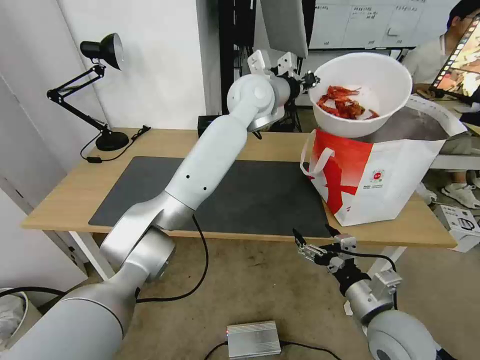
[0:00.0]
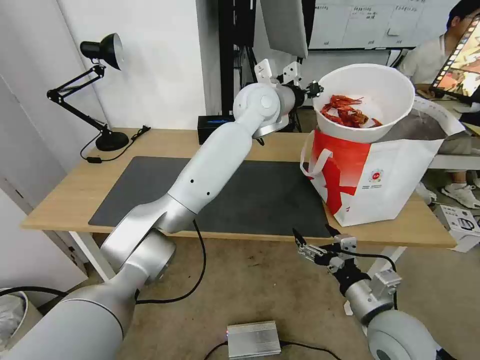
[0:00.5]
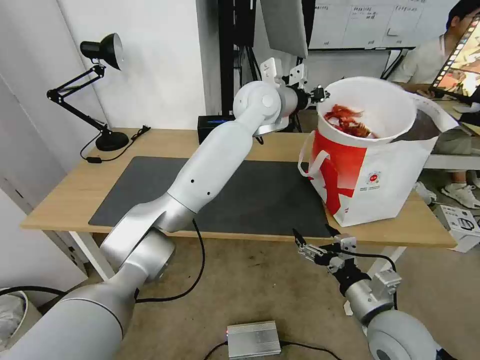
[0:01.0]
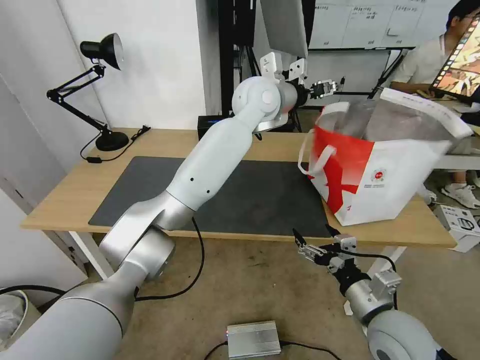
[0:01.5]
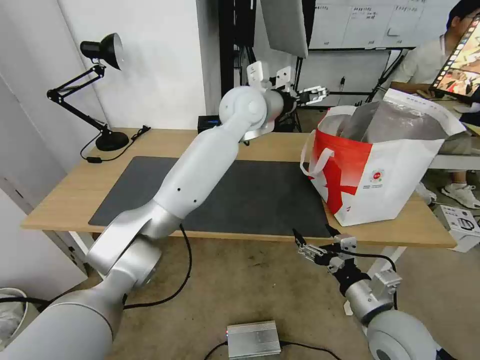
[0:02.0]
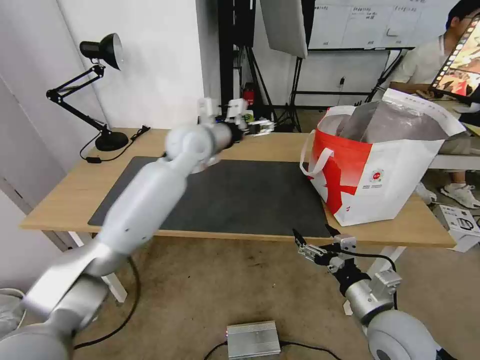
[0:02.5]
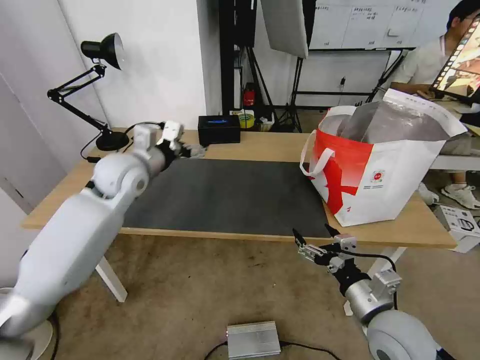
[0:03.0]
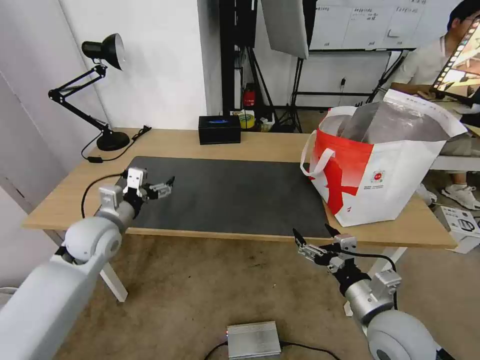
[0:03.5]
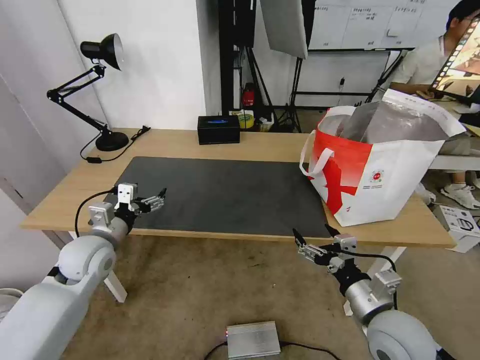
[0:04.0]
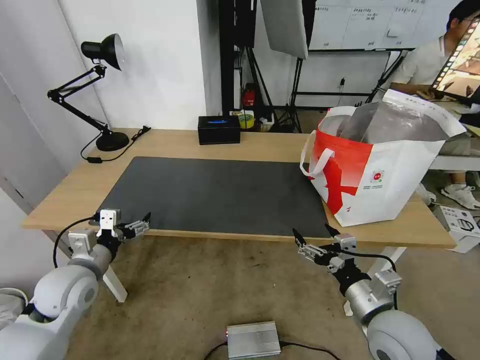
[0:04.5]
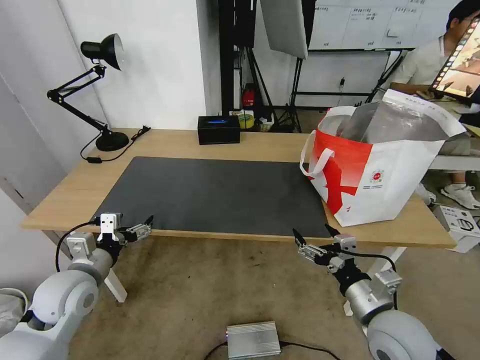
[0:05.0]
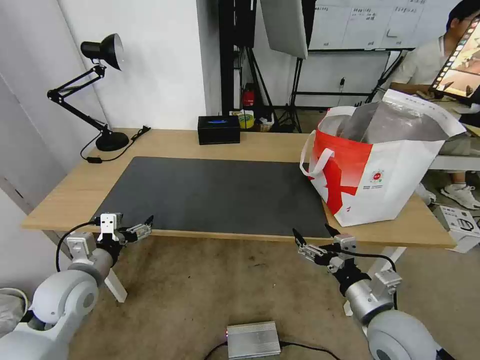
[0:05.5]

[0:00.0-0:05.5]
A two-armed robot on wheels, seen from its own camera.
Task of the whole recording: Pick up the trash from the table and place it into the takeout bag.
0:00.0 to 0:02.0: The left gripper opens its fingers.
0:02.0 to 0:03.5: The left gripper moves to the left, downward and backward, roughly 40 cm.
0:03.5 to 0:05.5: The left gripper heads backward, covering approximately 10 cm.

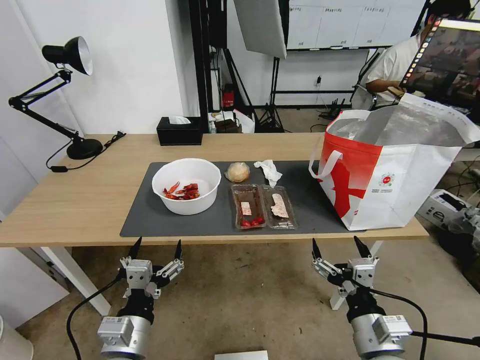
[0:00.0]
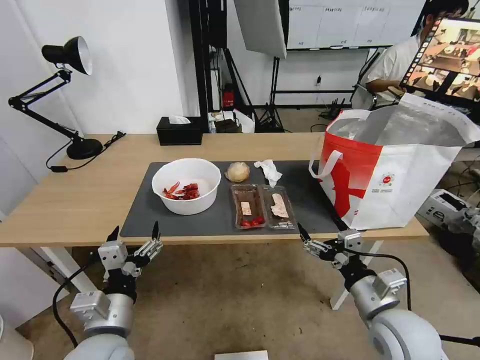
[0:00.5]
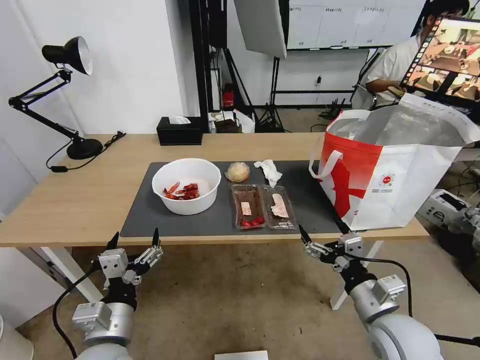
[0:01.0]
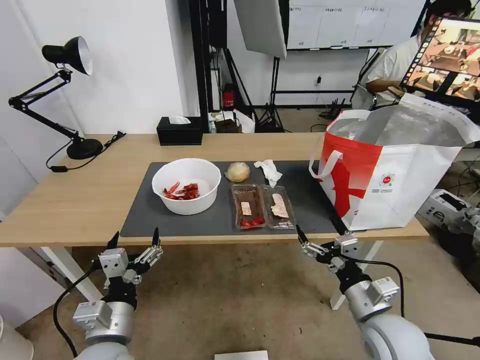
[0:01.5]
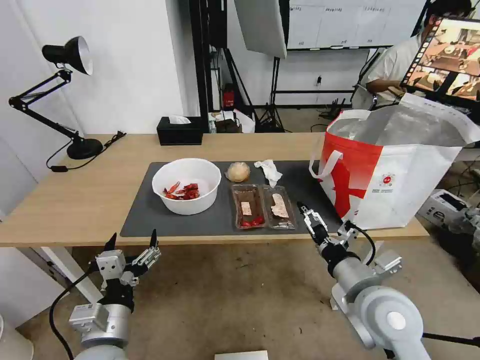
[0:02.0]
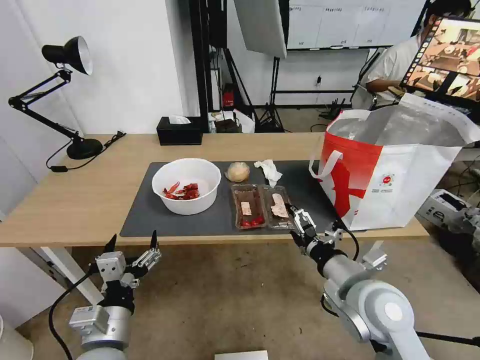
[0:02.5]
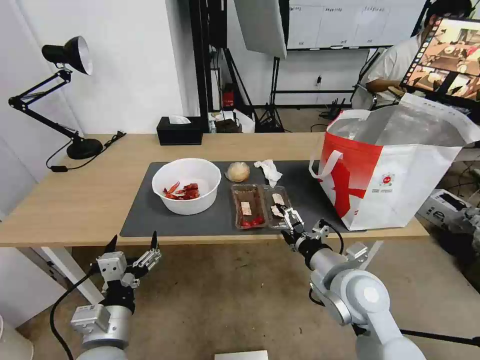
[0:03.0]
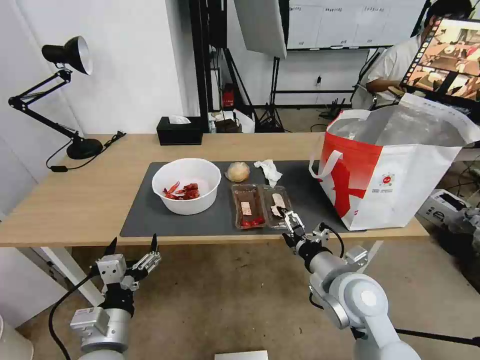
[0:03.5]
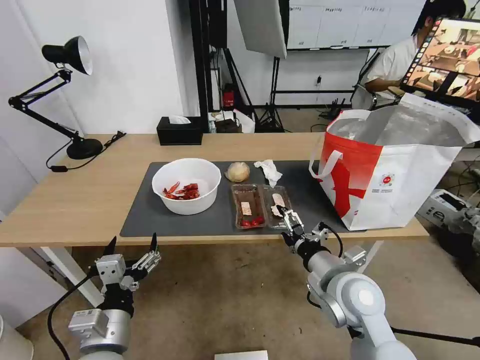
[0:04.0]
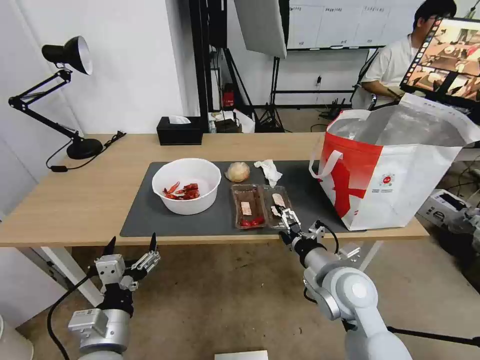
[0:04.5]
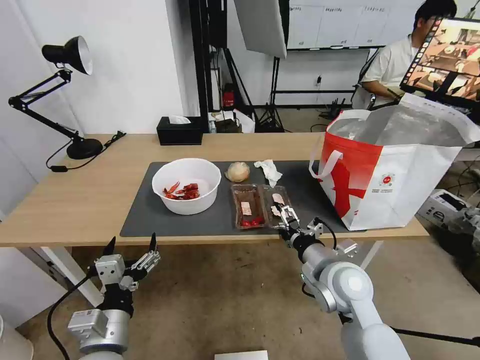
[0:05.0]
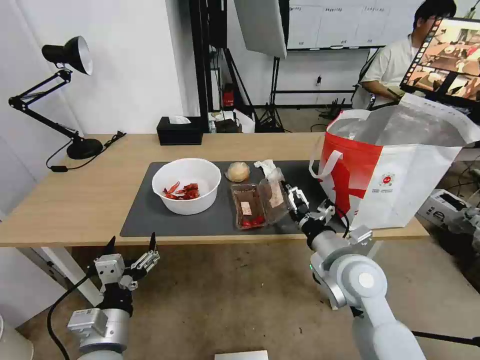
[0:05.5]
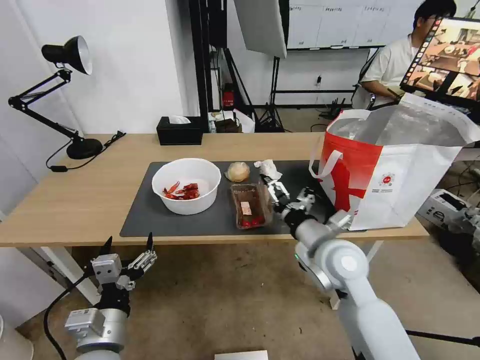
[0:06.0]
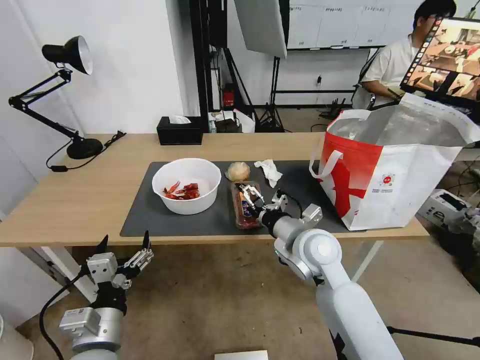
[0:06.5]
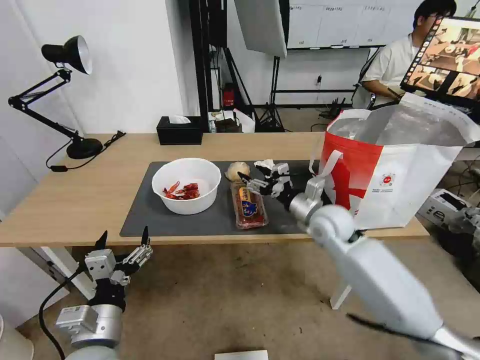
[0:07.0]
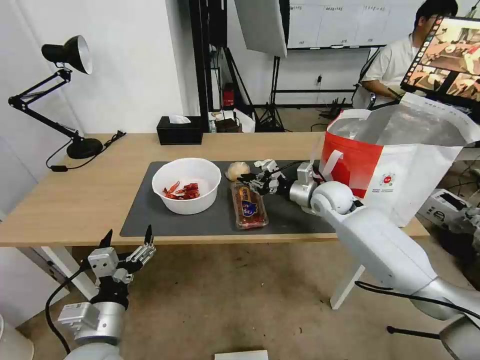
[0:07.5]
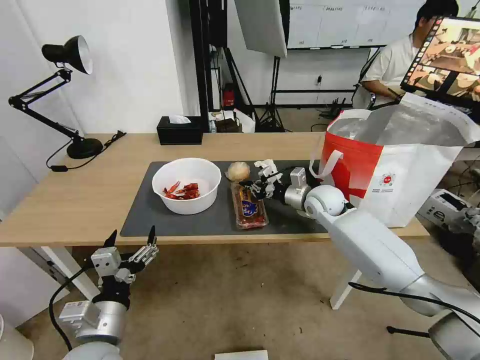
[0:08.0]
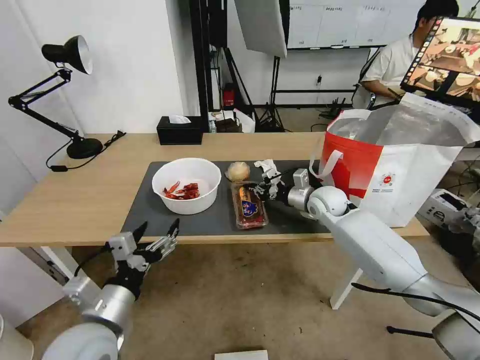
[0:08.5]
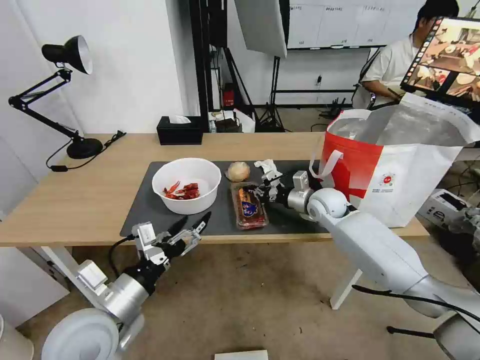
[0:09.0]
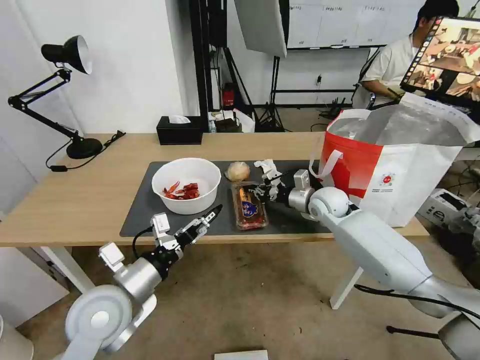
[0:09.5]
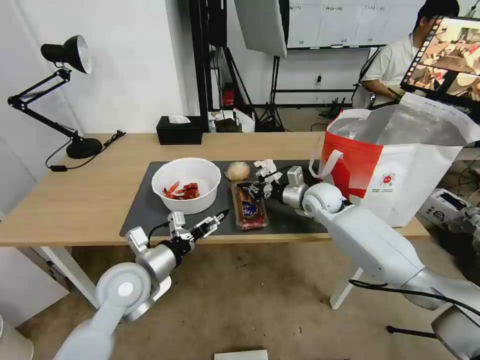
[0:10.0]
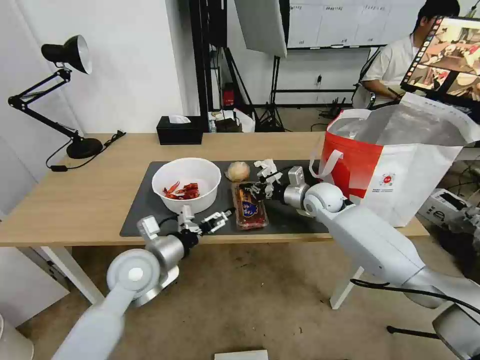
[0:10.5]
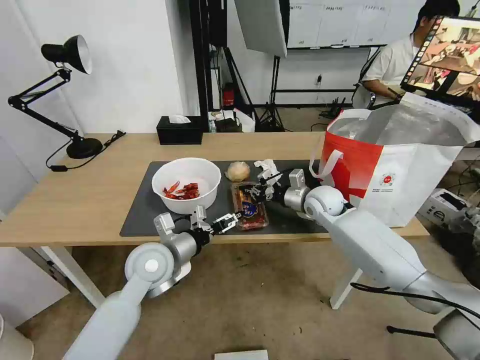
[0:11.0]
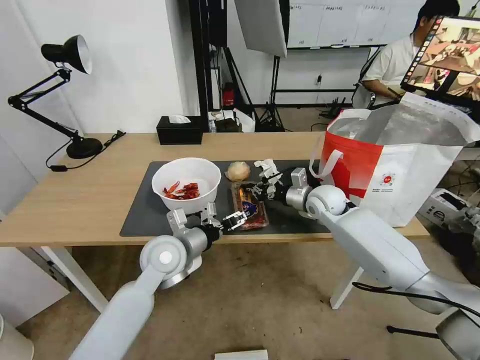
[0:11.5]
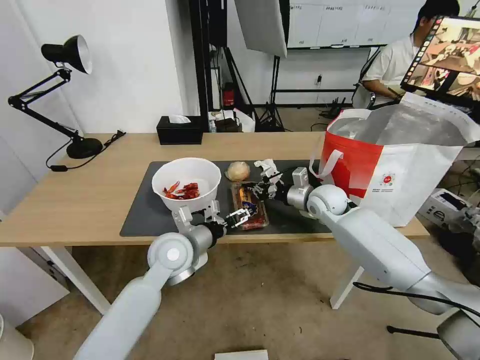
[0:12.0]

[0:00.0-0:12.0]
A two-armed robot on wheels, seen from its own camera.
Task of the whole recording: Pick up the trash from the table and place it into the takeout bag.
0:02.0 to 0:04.0: The right gripper shifts by some 5 cm.
0:04.0 to 0:06.0: The right gripper heads forward, covering approximately 5 cm.
0:06.0 to 0:08.0: The right gripper heads forward, covering some 20 cm, and closes.
0:08.0 to 0:10.0: The left gripper is displaced forward by approximately 15 cm.
0:10.0 to 0:12.0: The left gripper shifts some 10 cm to the right and forward.

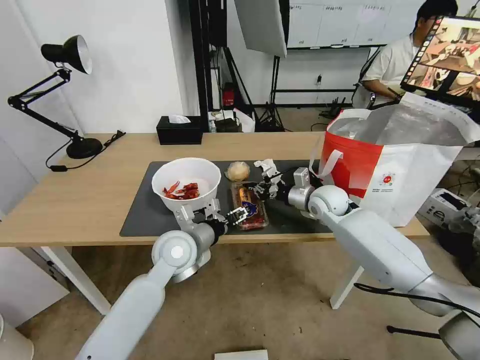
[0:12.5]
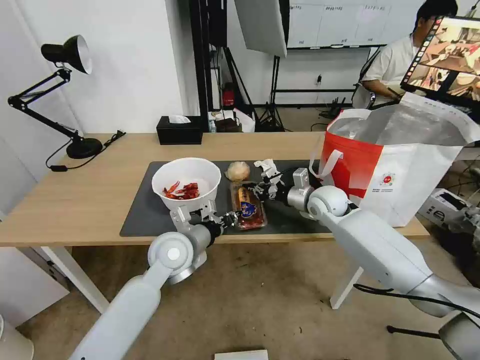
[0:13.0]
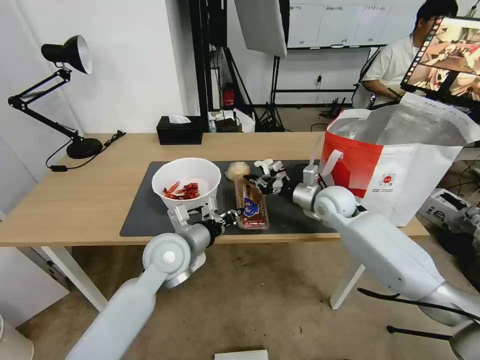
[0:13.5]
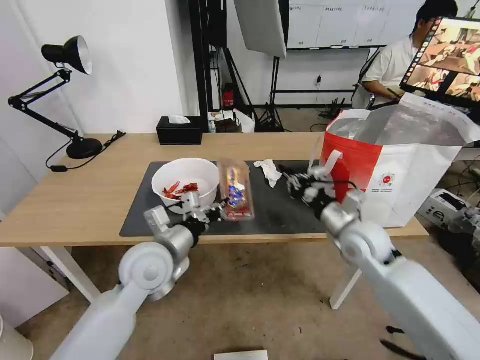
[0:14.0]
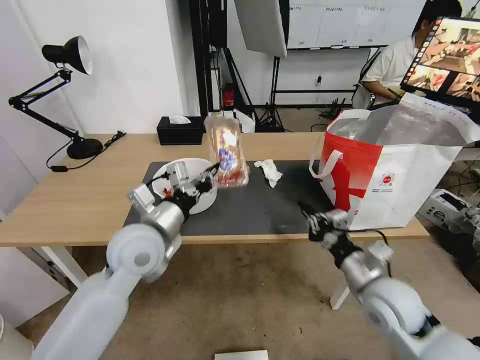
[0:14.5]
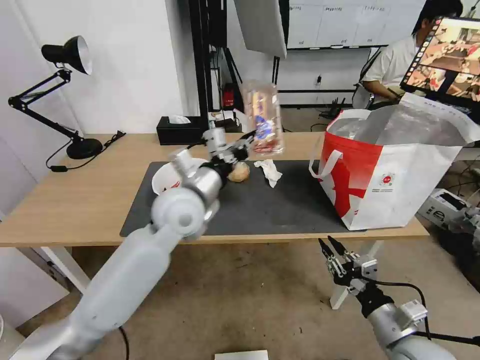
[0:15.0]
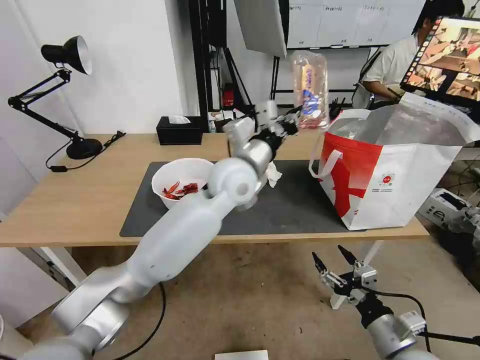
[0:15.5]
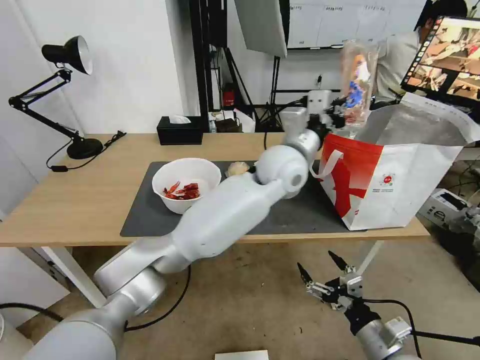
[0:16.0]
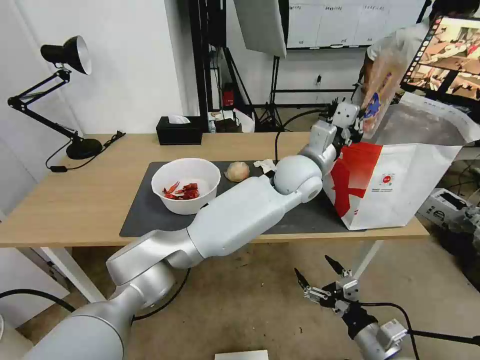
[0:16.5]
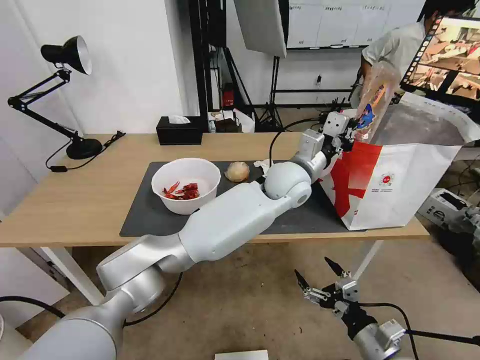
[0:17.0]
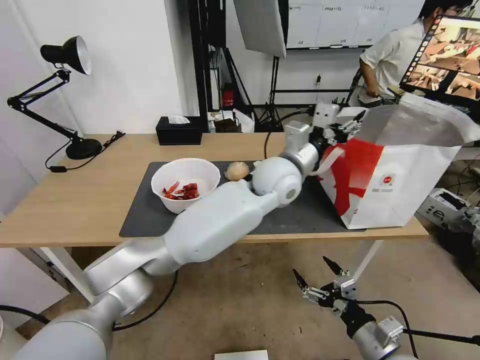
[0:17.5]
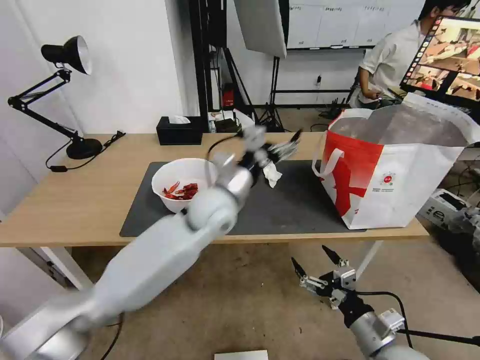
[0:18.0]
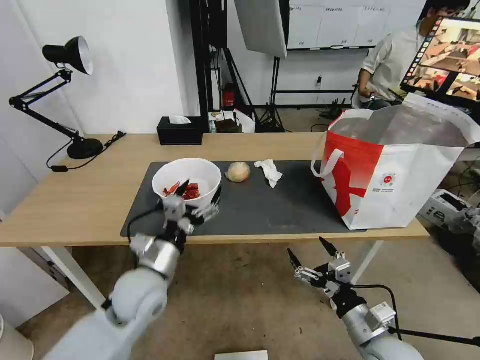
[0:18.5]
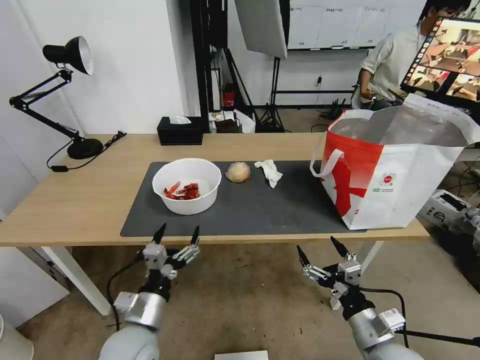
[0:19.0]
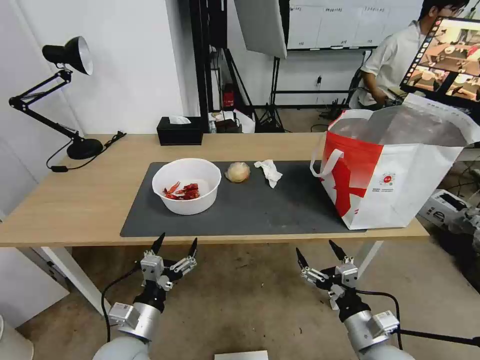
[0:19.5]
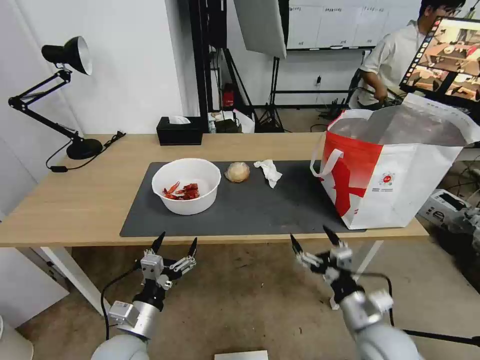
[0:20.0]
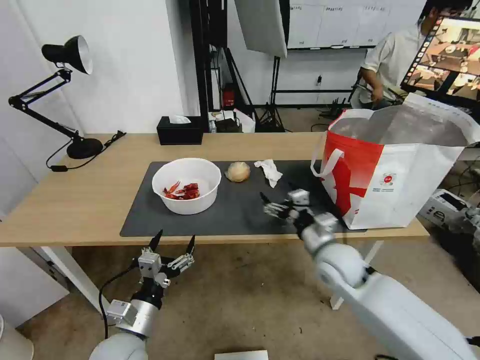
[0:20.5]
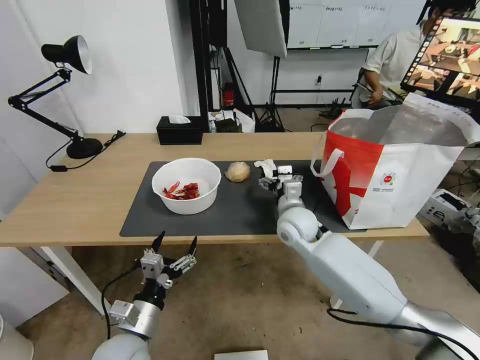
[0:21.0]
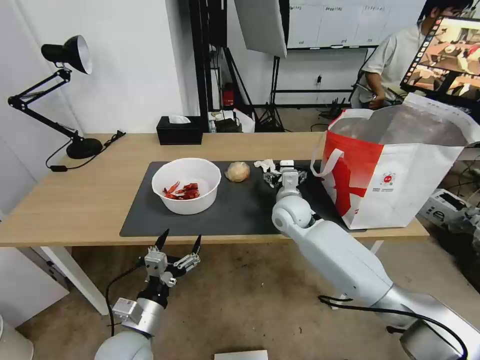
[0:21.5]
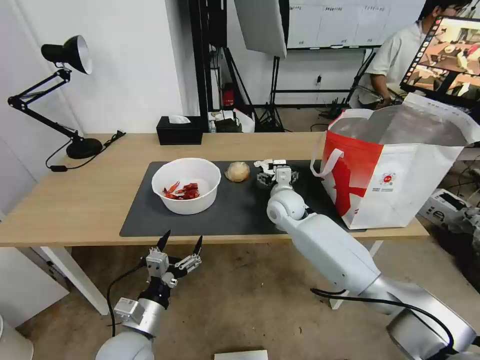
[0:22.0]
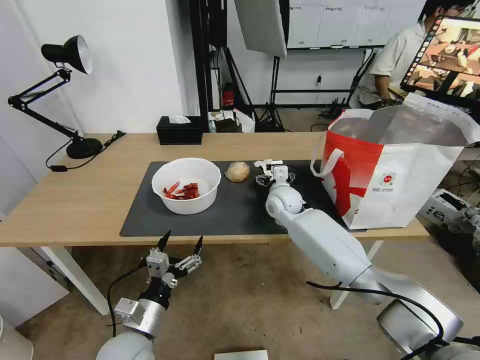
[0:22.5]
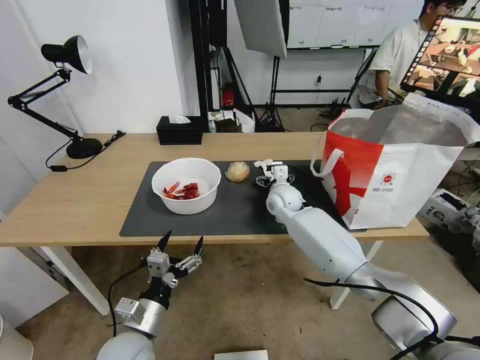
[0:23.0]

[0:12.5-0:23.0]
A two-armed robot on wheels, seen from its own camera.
Task of the whole recording: Pick up the trash from the table and place it into the takeout bag.
0:12.5 to 0:14.5: The left gripper goes about 10 cm upward, and closes, while the right gripper moves backward, roughly 25 cm.
0:14.5 to 0:16.5: The left gripper shifts some 35 cm to the right and forward. Meanwhile the right gripper travels backward and downward by approximately 15 cm, and opens.
0:16.5 to 0:19.0: The left gripper heads to the left, backward and downward, covering some 50 cm, and opens.
0:19.0 to 0:21.0: The right gripper travels forward and to the left by some 30 cm.
0:21.0 to 0:23.0: The right gripper moves forward, roughly 10 cm.
